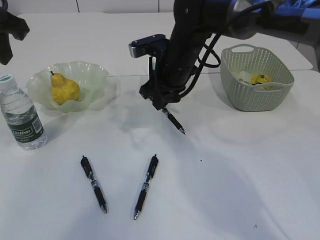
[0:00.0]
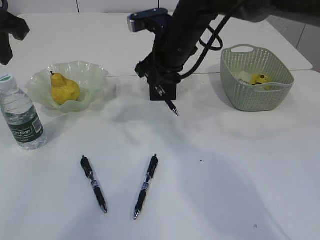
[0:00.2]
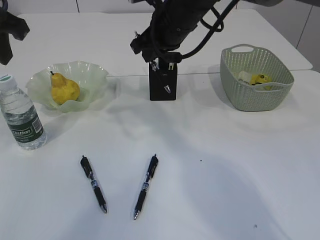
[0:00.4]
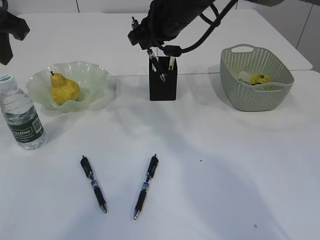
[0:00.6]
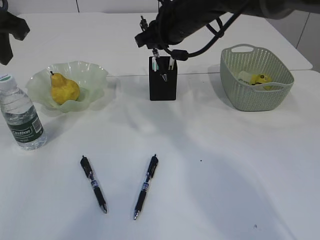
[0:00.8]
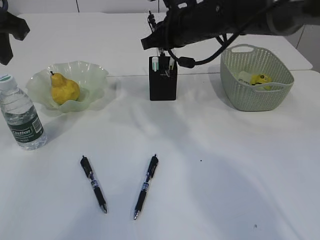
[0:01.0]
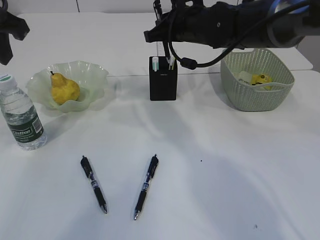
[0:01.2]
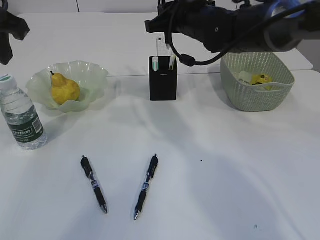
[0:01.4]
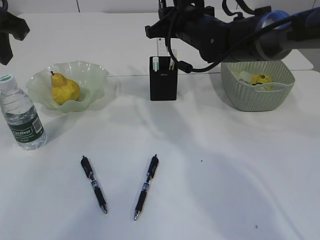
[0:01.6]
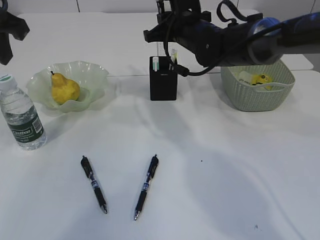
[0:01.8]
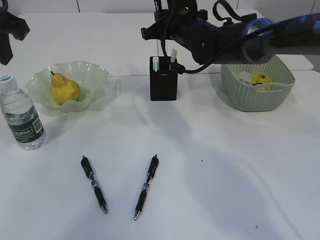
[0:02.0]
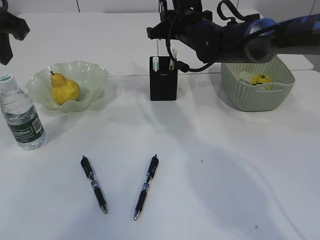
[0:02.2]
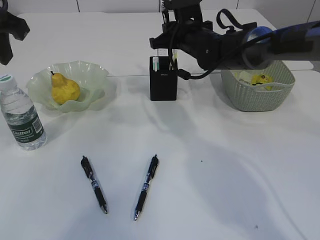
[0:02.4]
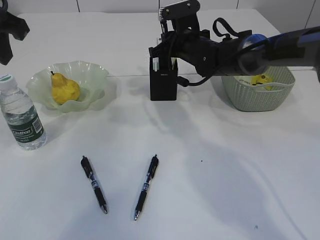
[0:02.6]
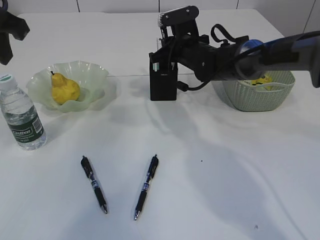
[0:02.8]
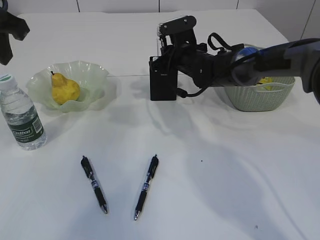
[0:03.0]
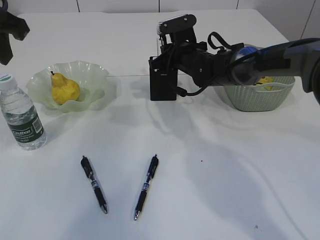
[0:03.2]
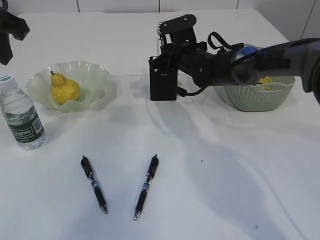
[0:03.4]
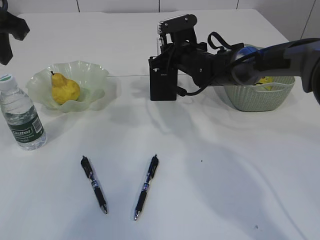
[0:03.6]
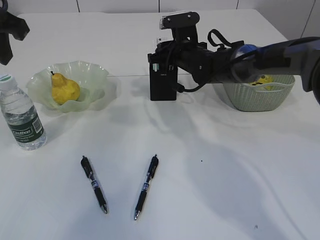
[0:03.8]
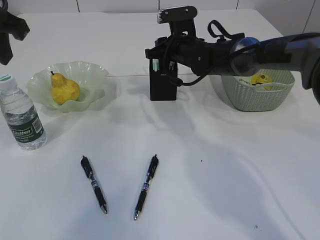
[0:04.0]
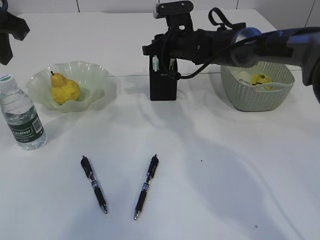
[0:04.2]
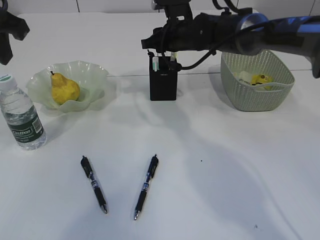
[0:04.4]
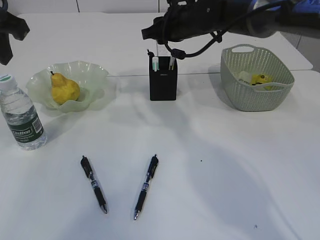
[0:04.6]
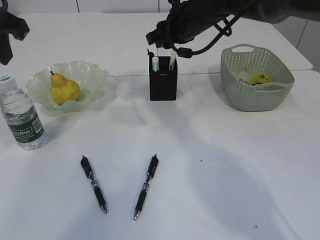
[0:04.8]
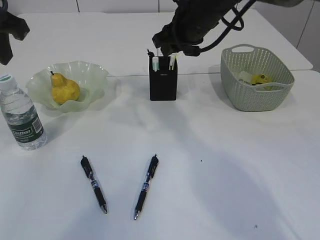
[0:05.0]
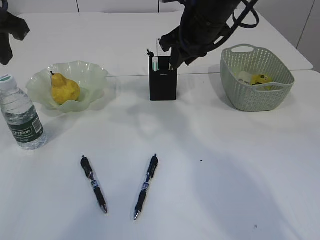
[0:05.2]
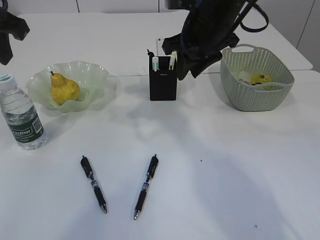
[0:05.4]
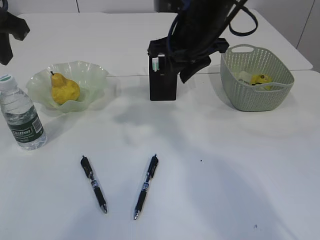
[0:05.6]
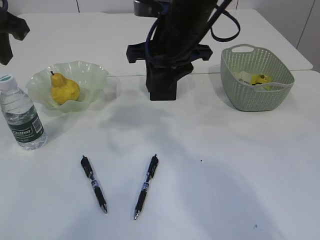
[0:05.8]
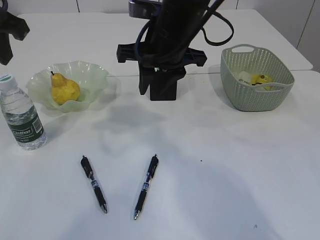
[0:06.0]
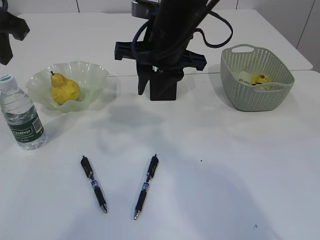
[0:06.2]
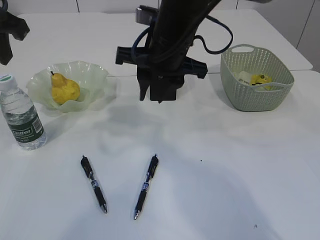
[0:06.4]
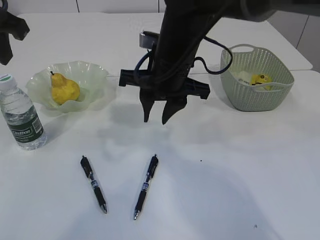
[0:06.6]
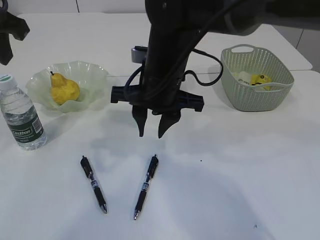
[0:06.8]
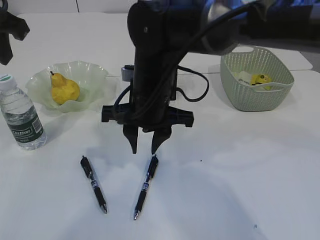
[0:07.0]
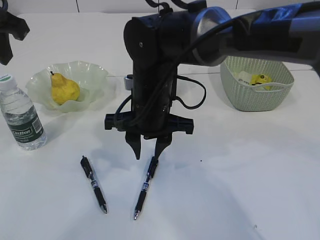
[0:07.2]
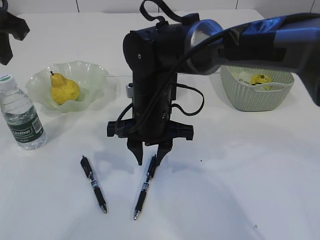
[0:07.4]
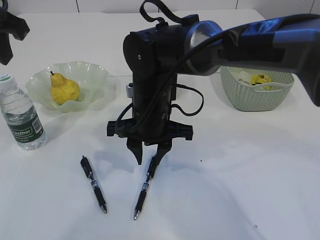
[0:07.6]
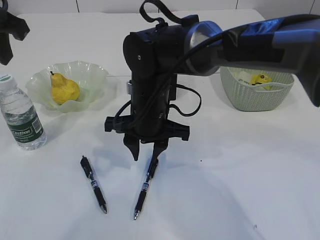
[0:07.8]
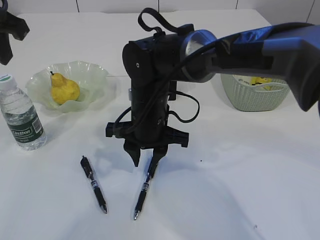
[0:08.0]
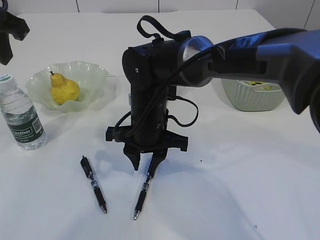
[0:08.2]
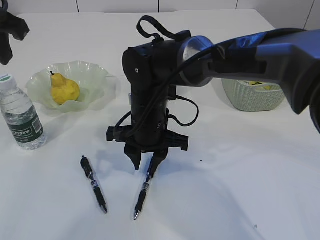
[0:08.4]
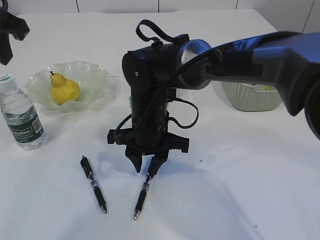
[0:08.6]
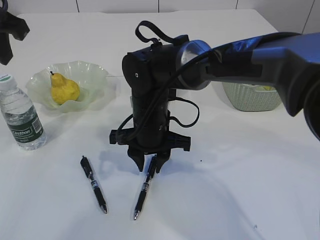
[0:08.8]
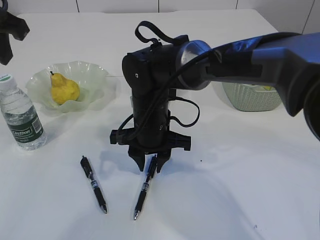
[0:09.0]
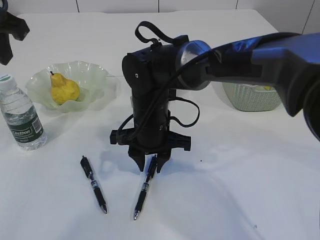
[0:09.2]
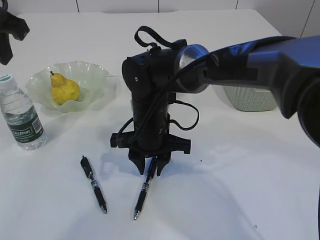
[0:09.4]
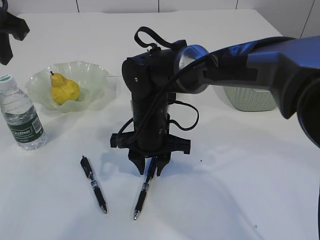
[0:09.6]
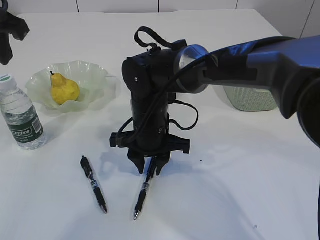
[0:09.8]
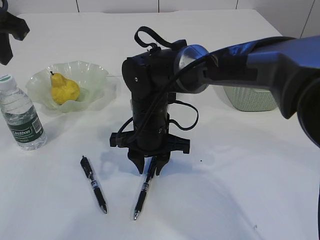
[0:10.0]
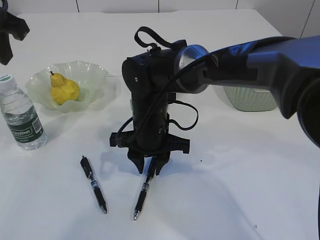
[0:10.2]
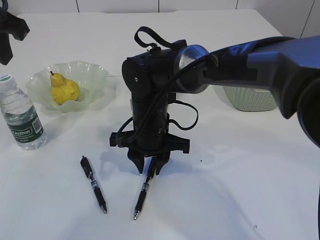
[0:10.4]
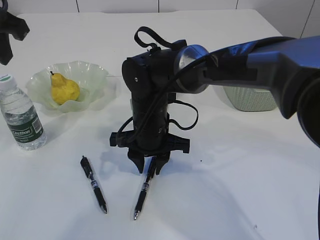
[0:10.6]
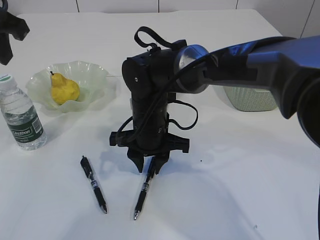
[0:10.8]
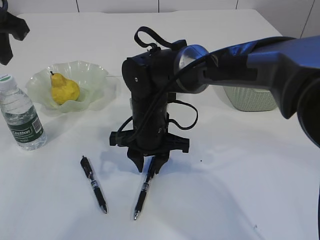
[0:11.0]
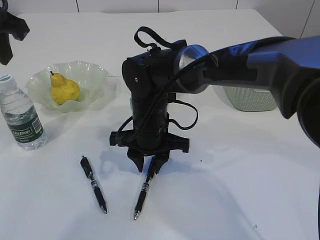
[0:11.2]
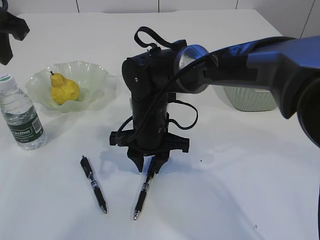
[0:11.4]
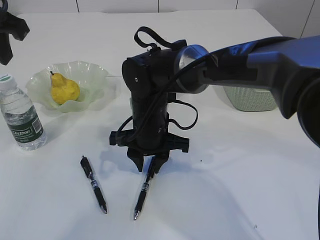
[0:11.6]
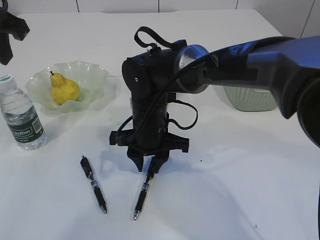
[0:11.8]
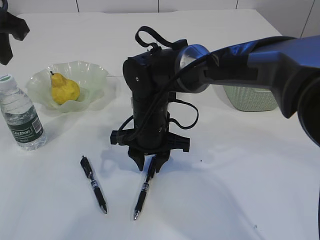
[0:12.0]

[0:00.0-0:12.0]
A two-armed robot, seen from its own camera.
Step, 0:00.0 to 0:05.8: Place the pen into the pen holder.
0:00.0 to 0:01.6: The right gripper shifts by some 5 cm.
0:01.6 to 0:03.0: The right gripper heads downward, covering about 10 cm.
0:03.0 to 0:04.4: The right gripper goes roughly 5 cm upward, and opens its fingers.
0:04.4 to 0:06.0: The right gripper moves backward and upward, roughly 15 cm.
0:06.0 to 0:07.6: The right gripper heads downward, covering some 10 cm.
0:07.6 to 0:09.0: The grippers make only small movements.
0:09.0 to 0:12.0: Both grippers stay put.

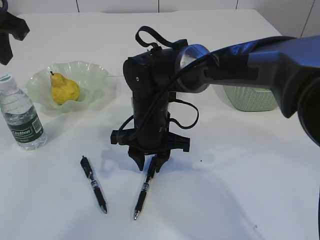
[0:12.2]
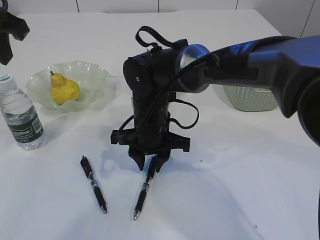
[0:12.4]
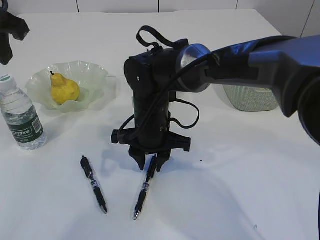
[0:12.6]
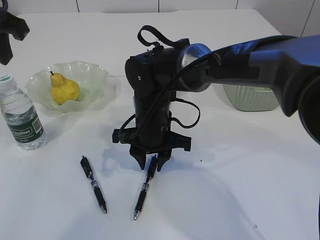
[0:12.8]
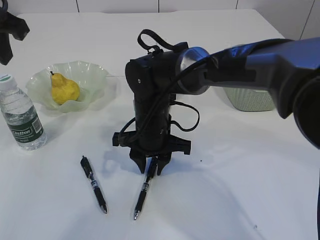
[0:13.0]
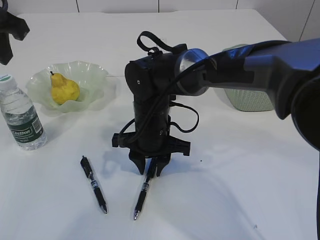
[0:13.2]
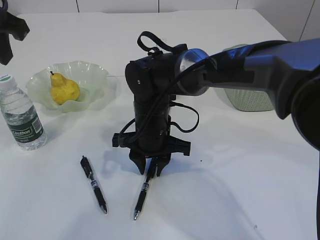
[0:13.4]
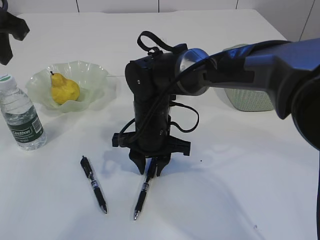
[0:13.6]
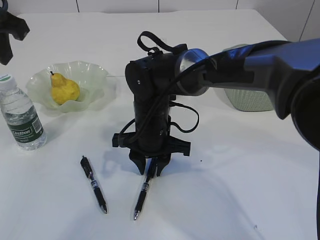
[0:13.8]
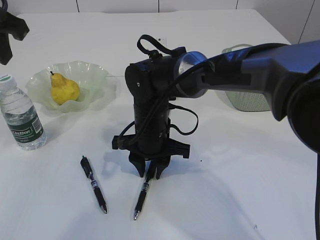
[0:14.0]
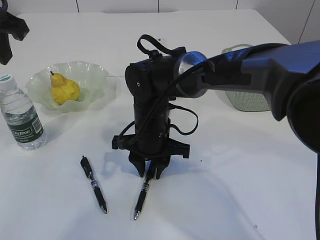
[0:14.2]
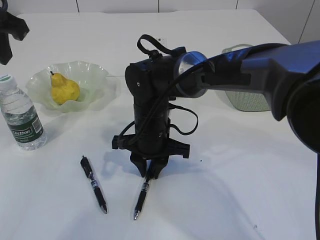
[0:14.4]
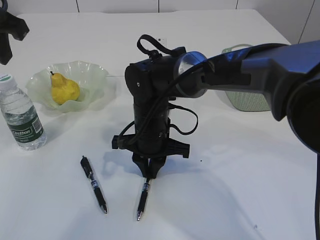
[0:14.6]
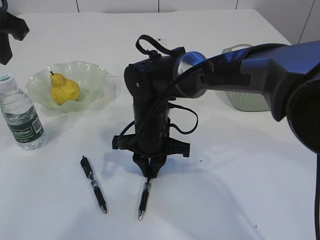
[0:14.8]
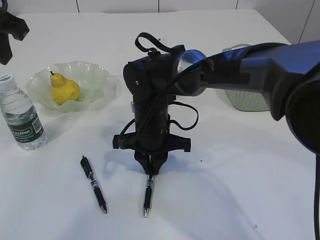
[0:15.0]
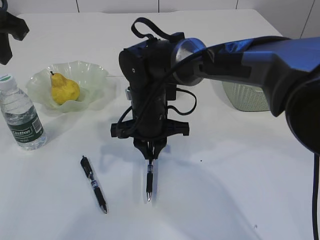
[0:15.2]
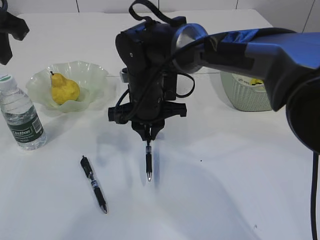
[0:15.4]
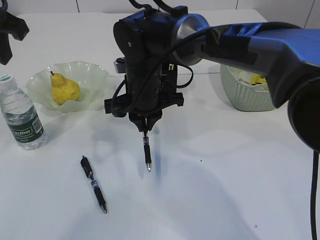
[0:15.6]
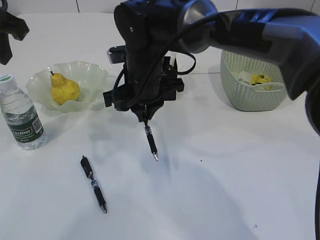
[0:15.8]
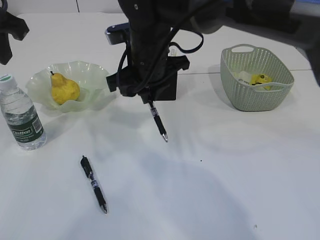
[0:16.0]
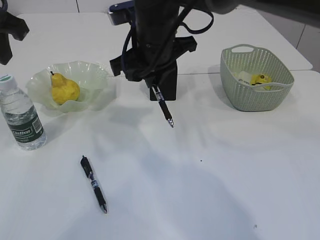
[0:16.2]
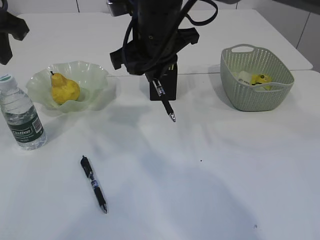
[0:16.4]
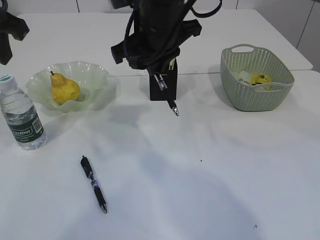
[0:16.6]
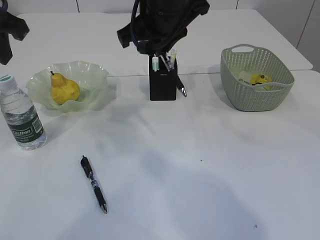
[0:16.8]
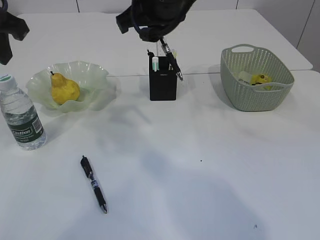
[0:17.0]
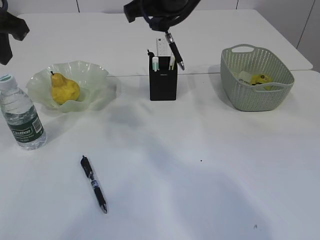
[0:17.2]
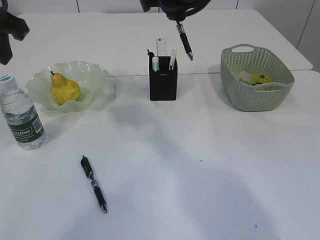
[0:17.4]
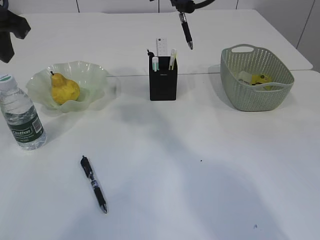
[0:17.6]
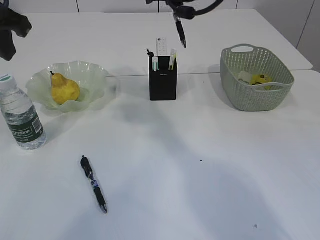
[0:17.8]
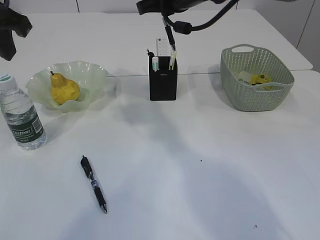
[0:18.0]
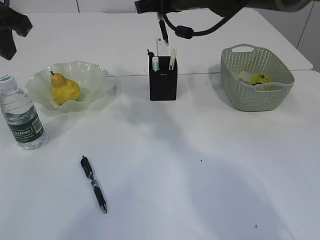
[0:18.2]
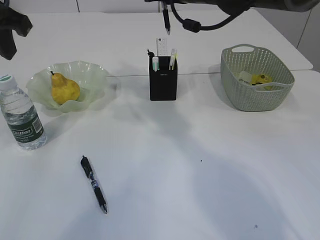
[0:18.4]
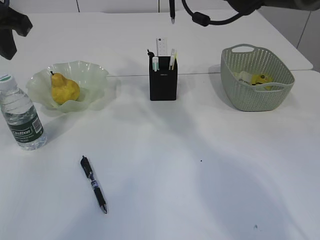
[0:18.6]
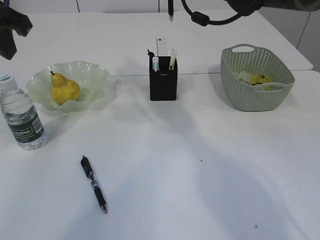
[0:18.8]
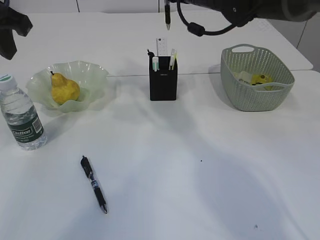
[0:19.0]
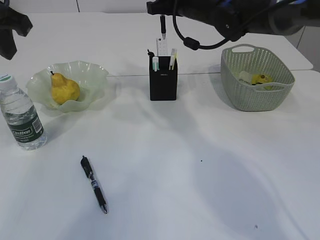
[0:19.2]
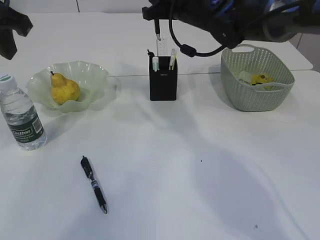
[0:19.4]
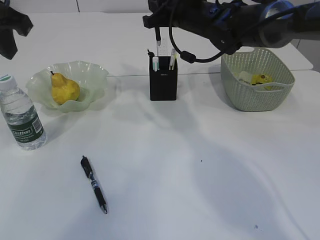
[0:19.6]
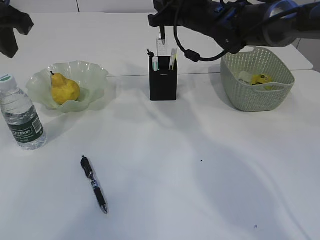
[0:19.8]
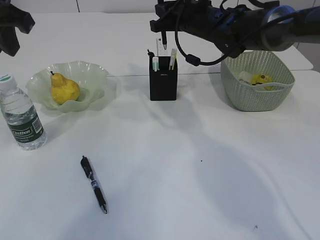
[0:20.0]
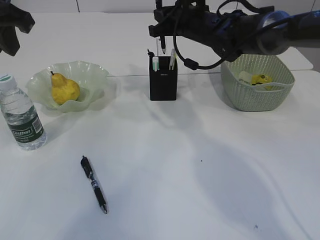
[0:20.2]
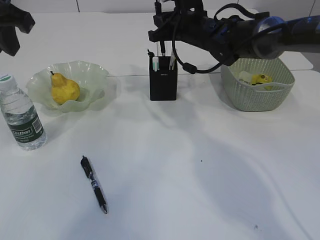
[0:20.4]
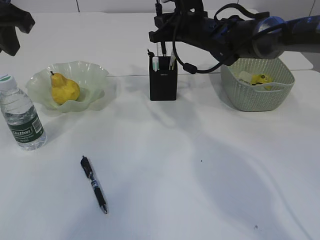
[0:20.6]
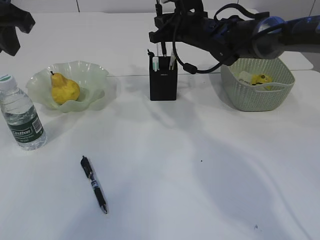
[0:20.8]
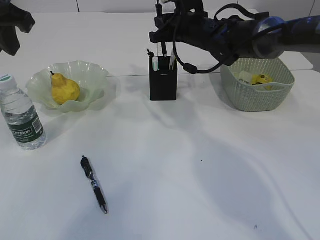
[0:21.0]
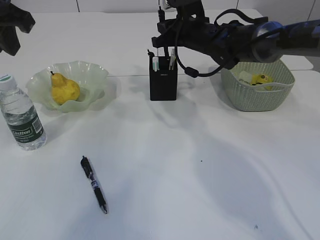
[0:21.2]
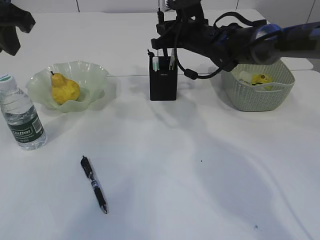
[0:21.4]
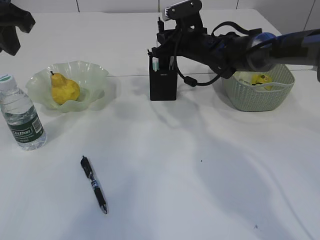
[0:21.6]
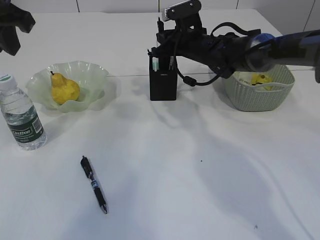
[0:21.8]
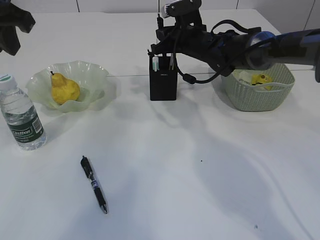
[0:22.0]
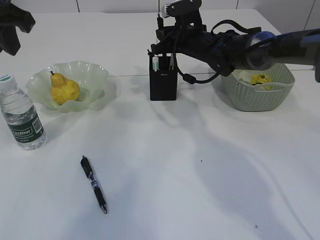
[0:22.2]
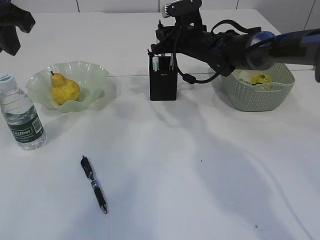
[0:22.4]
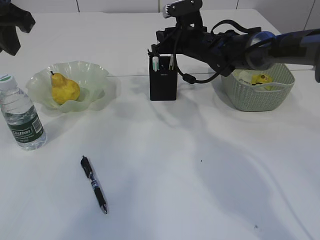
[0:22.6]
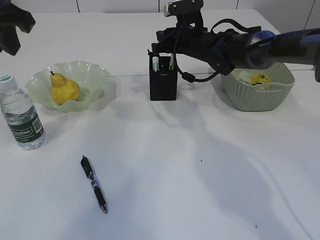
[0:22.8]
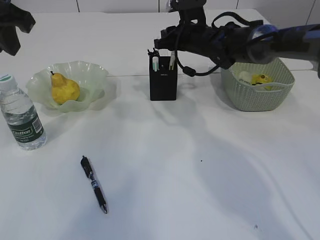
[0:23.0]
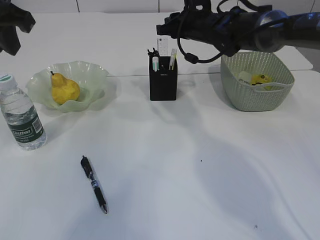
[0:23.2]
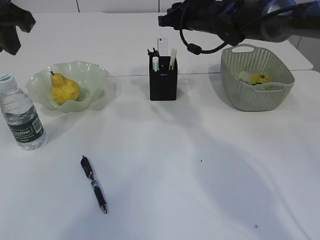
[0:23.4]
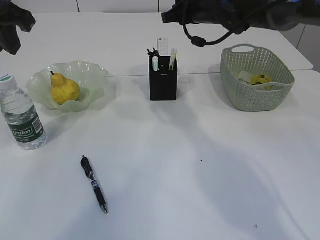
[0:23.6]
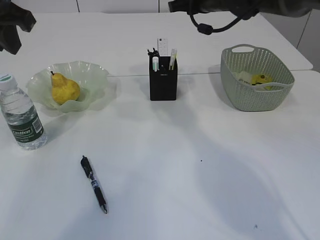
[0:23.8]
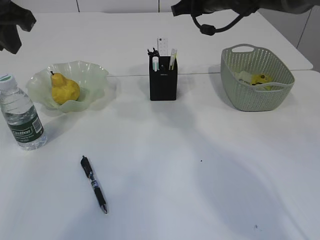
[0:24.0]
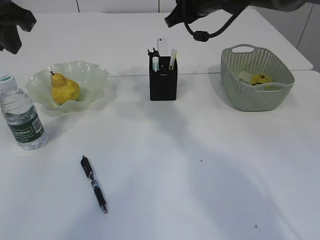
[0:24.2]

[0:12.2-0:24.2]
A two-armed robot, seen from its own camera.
Step, 0:12.2 to 0:16.4: Pick up the pen with right arm.
Step, 0:16.6 to 0:23.4: Place the pen into the pen holder.
0:12.2 to 0:13.8: The two grippers keep their place.
0:13.8 to 0:15.2: There are only small adjustments of the grippers.
0:15.2 to 0:16.6: The right gripper is displaced upward by about 15 cm.
0:16.6 to 0:18.2: The right gripper is displaced forward and to the right by roughly 10 cm.
0:18.2 to 0:19.8: The right gripper is displaced downward by roughly 5 cm.
0:19.8 to 0:21.2: The right gripper moves approximately 5 cm.
0:21.2 to 0:22.6: There are only small adjustments of the grippers.
0:22.6 to 0:24.2: The right gripper travels upward by about 10 cm.
